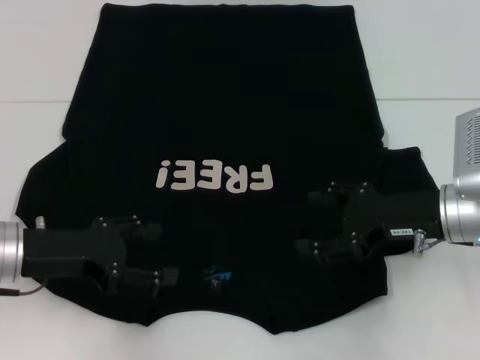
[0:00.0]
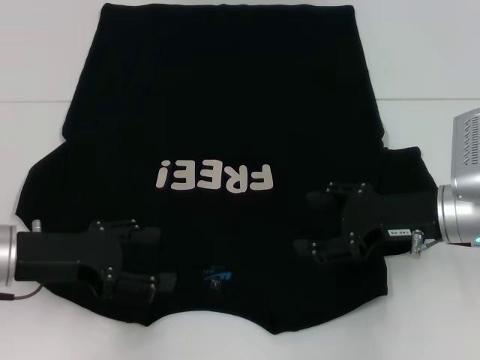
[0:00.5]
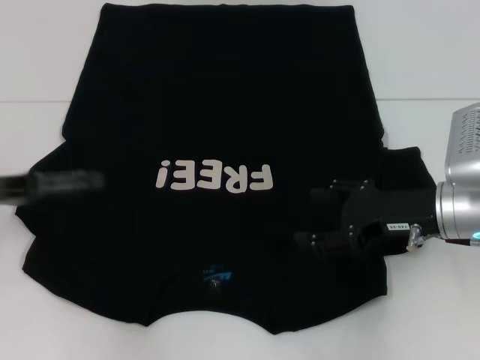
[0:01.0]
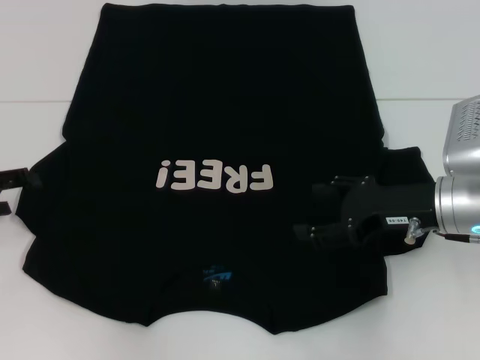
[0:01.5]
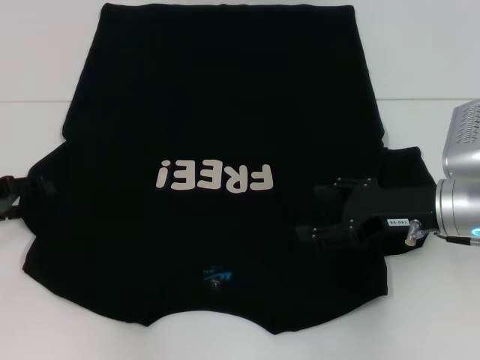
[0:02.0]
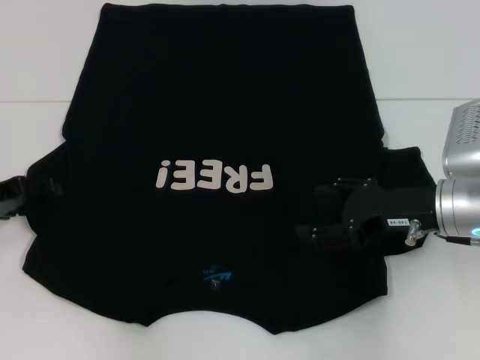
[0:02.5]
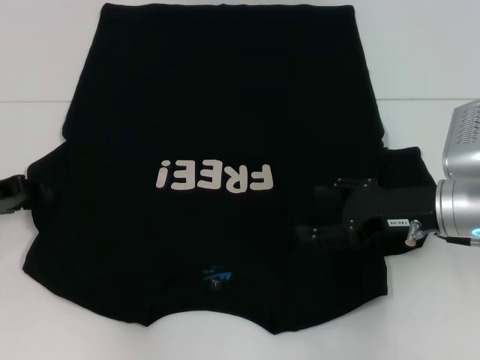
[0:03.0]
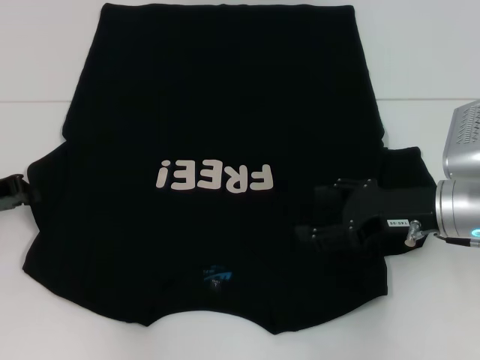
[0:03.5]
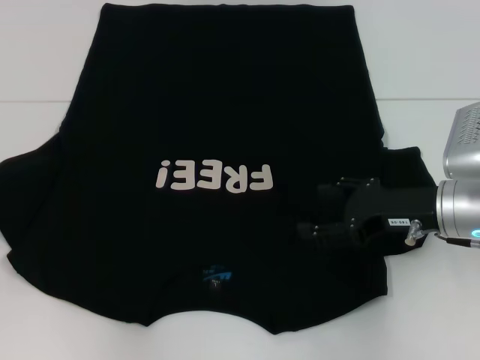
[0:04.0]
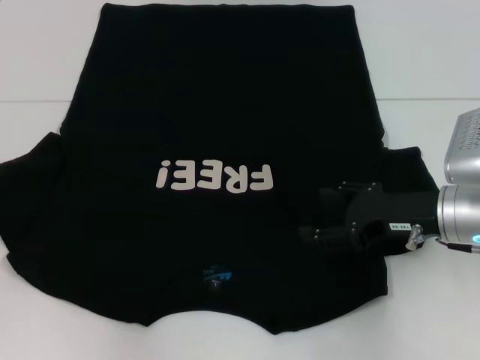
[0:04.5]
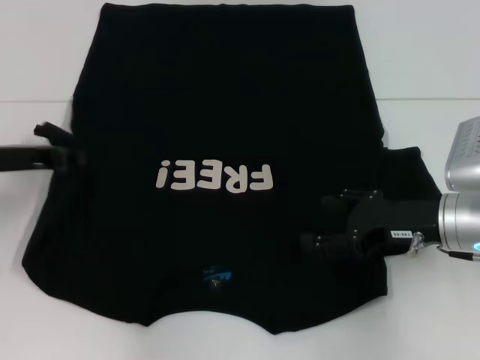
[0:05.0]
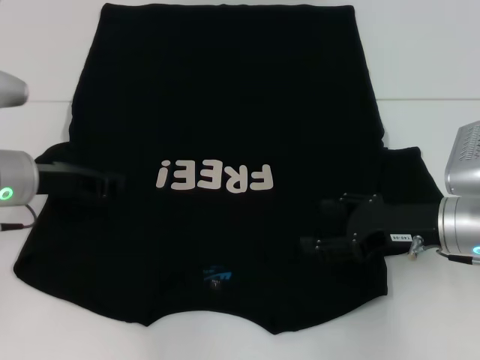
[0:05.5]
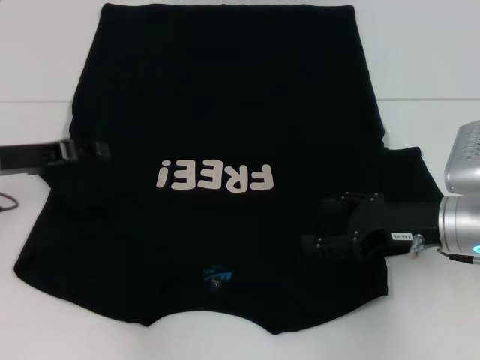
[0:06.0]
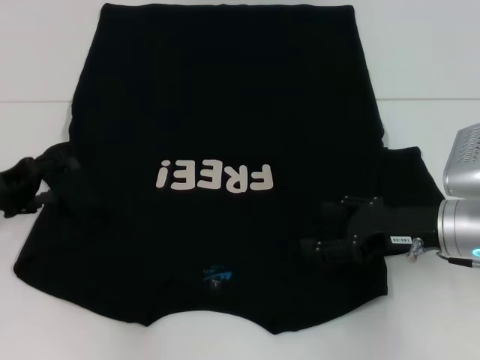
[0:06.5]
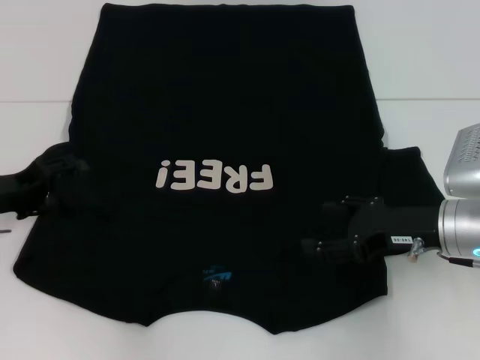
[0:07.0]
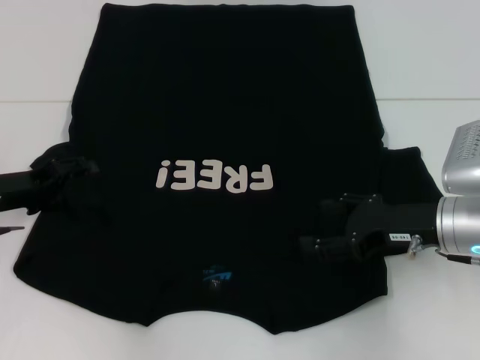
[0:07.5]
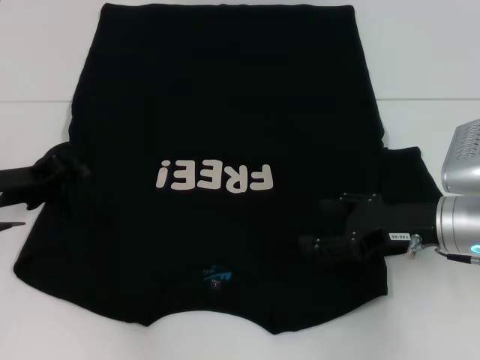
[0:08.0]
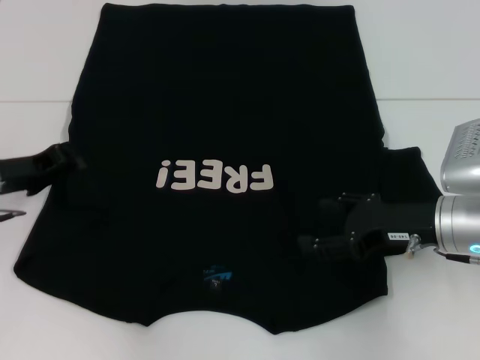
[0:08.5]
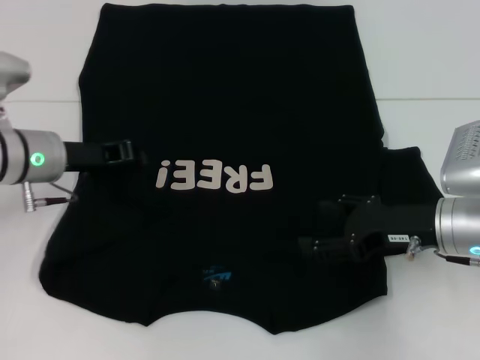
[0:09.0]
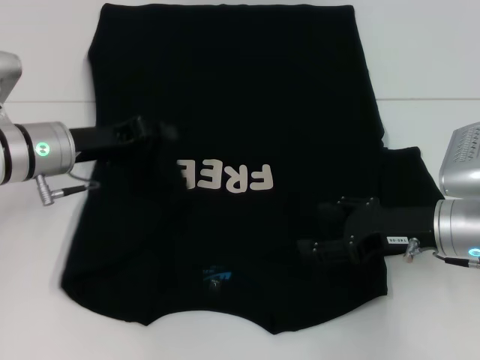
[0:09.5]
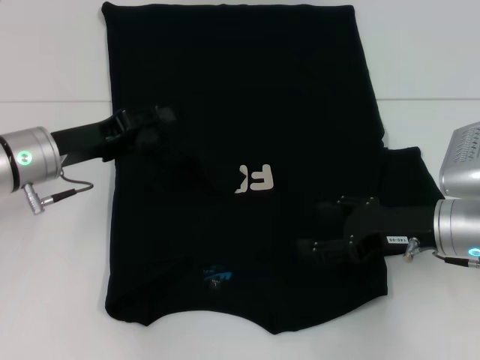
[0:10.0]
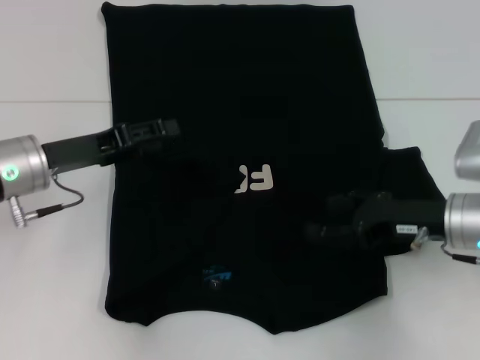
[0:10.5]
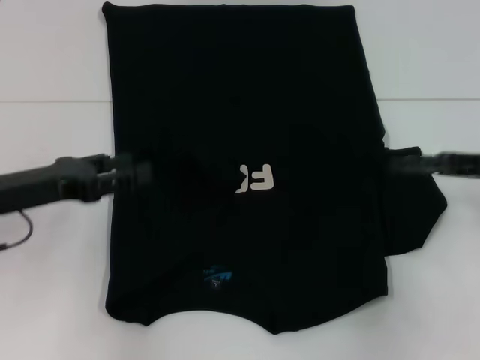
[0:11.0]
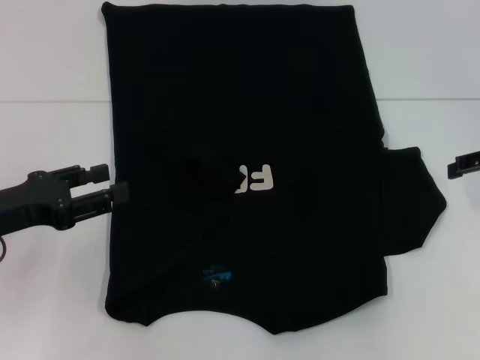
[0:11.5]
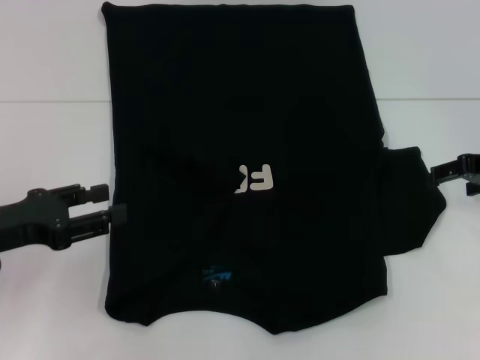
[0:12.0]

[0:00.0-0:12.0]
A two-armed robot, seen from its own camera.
Step, 0:00.0 to 0:06.0: Fold the bottom left sleeve with your left hand.
0:00.0 to 0:02.0: The left gripper is displaced to the left by approximately 10 cm.
0:02.0 to 0:04.0: The left gripper closes.
0:04.0 to 0:06.0: The left gripper heads to the right, covering about 10 cm.
0:06.0 to 0:08.0: The left gripper travels downward by roughly 5 cm, and opens and closes again.
0:08.0 to 0:10.0: The left gripper moves to the right, some 5 cm, and closes, then opens again.
0:10.0 to 0:12.0: The left gripper shifts approximately 10 cm backward and to the left; the right gripper heads to the right, forward and upward, covering roughly 15 cm.

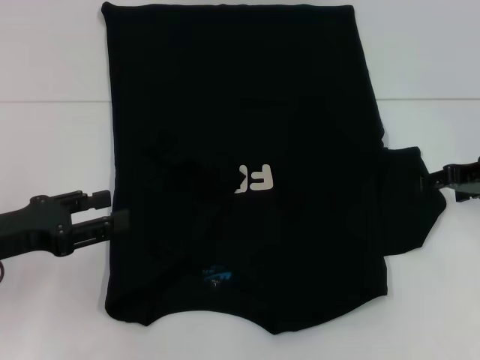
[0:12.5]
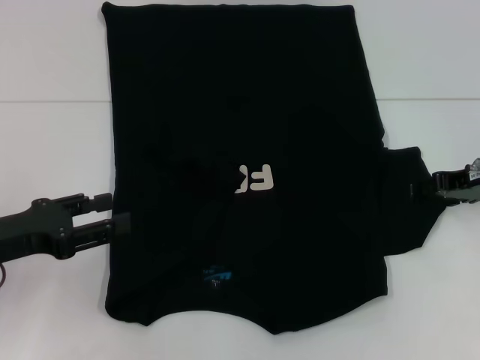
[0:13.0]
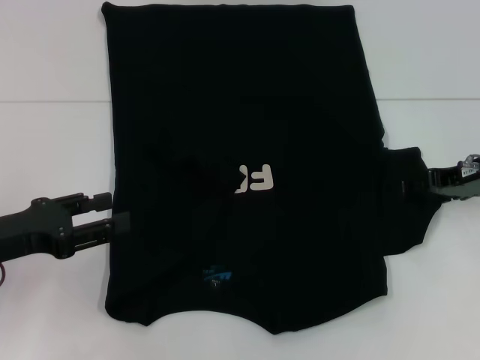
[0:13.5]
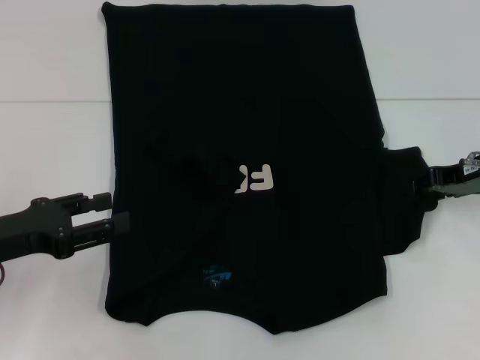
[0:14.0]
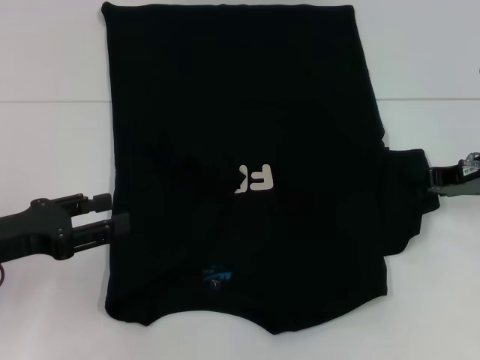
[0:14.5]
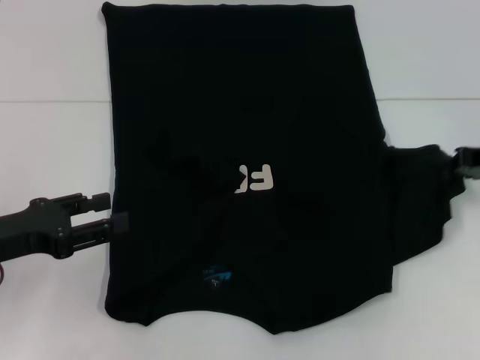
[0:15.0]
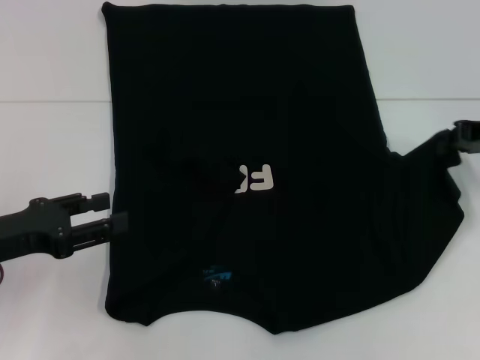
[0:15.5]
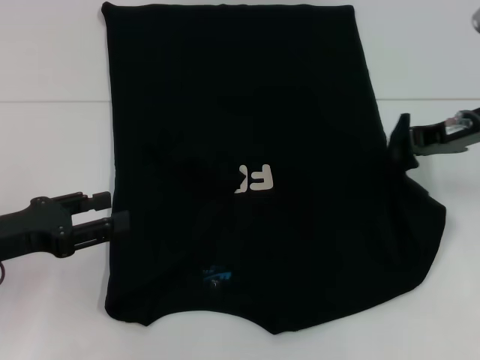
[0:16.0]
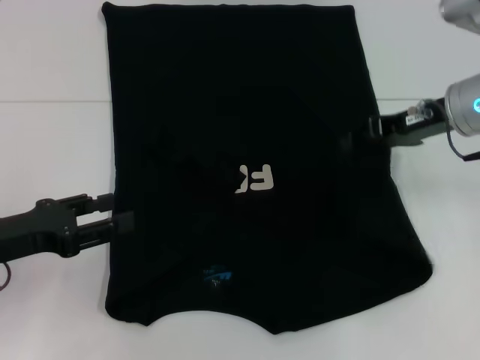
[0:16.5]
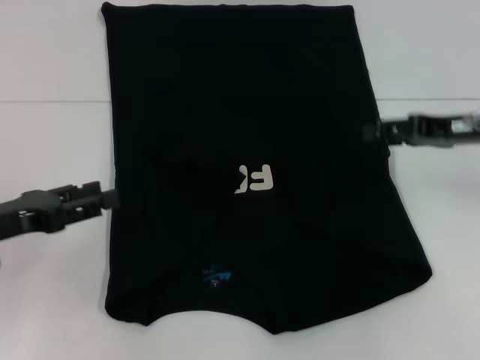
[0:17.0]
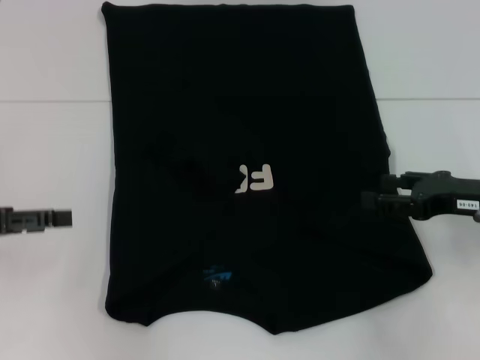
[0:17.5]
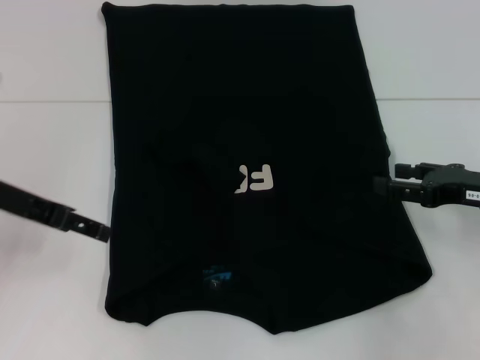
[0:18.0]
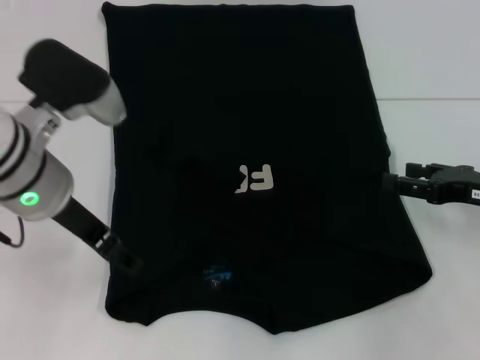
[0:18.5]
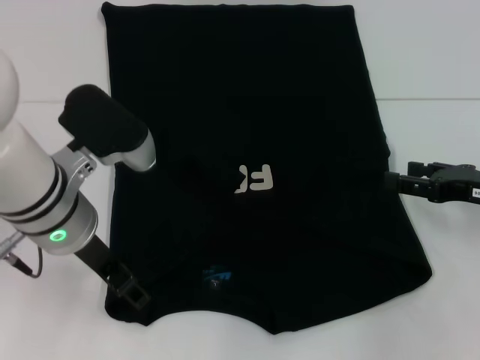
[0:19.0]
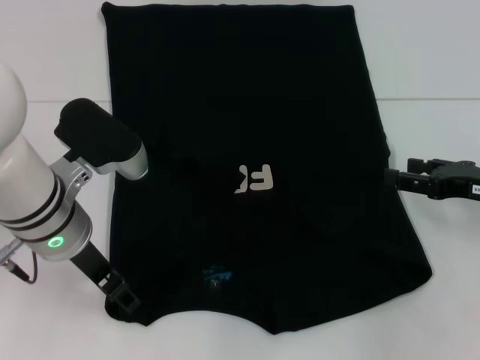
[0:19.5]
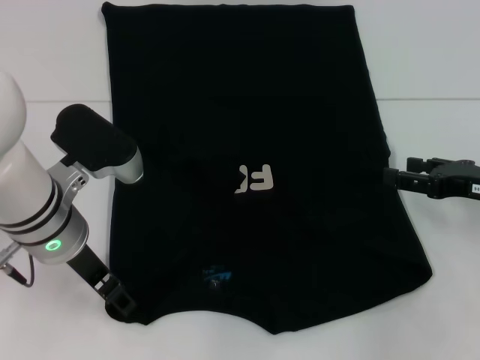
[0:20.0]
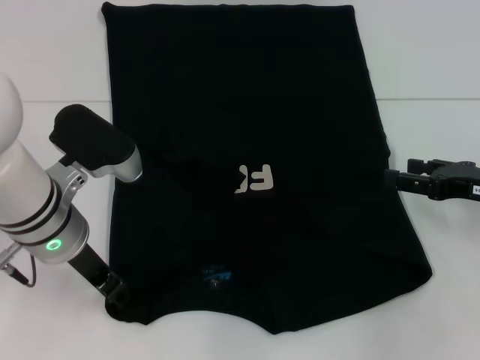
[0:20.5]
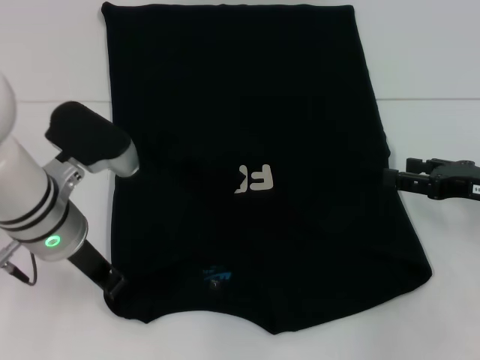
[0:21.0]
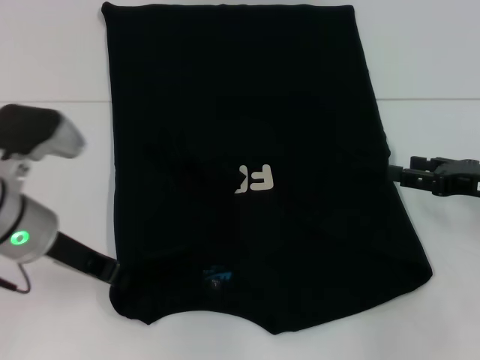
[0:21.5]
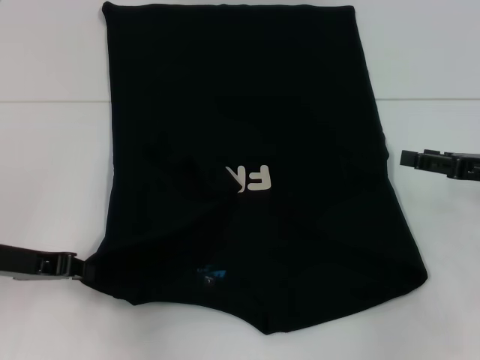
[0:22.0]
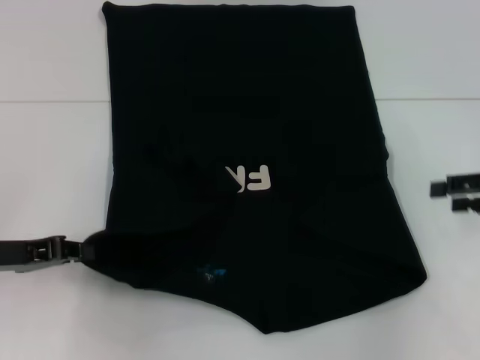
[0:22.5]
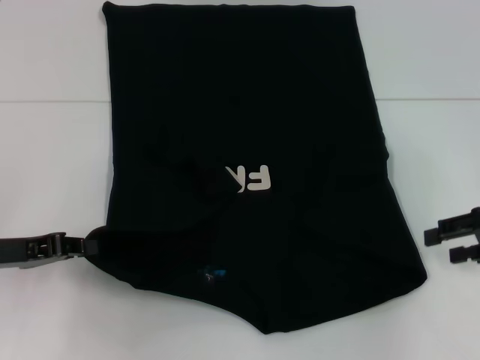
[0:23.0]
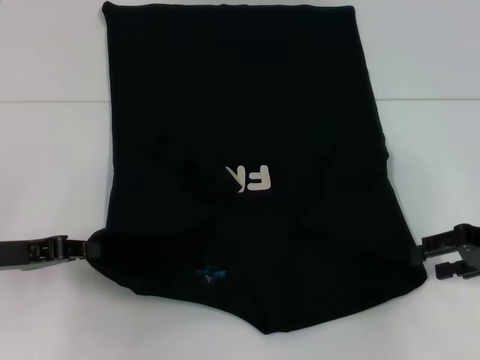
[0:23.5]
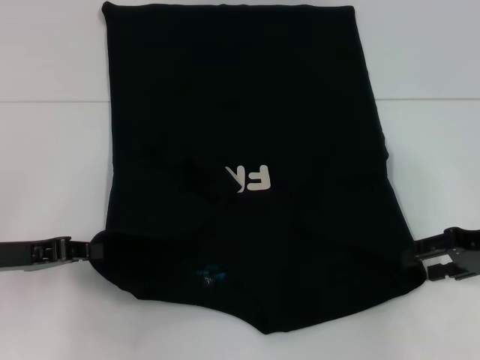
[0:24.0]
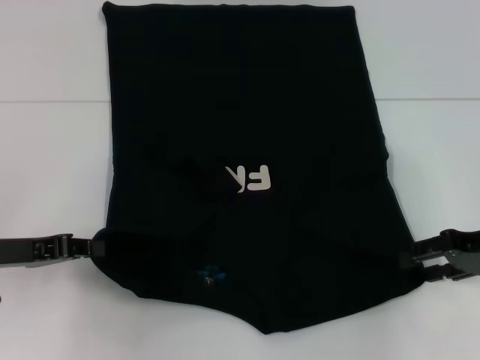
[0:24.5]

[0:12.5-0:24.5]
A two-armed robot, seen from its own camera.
Step, 0:12.5 to 0:17.5: Fold the bottom right sleeve with your right hand.
Step, 0:18.0 to 0:21.0: Grab the bottom left corner with your left hand.
0:12.5 to 0:14.5: The right gripper closes.
0:14.5 to 0:16.5: The right gripper shifts roughly 5 cm to the left.
0:16.5 to 0:18.5: The left gripper is displaced to the right, upward and forward by some 15 cm. The right gripper is displaced to the right, downward and backward by roughly 15 cm, and opens its fingers.
0:18.5 to 0:20.5: The left gripper is displaced downward by roughly 5 cm.
0:20.5 to 0:22.5: The right gripper shifts by about 5 cm; the left gripper moves to the left, roughly 15 cm, and closes.
0:22.5 to 0:24.5: The right gripper shifts by approximately 5 cm.

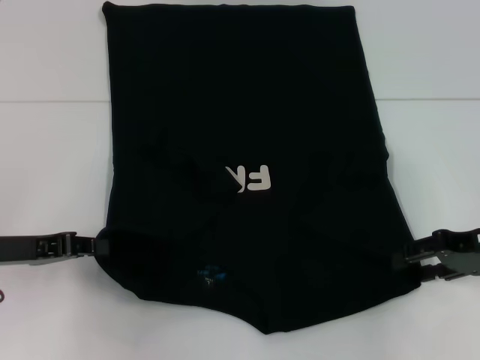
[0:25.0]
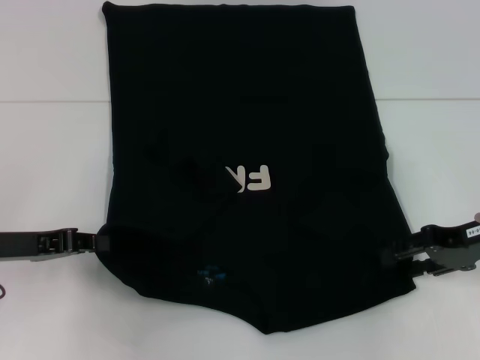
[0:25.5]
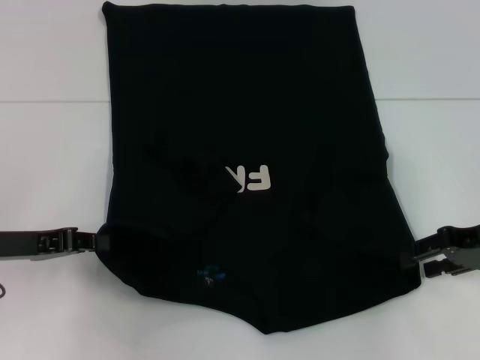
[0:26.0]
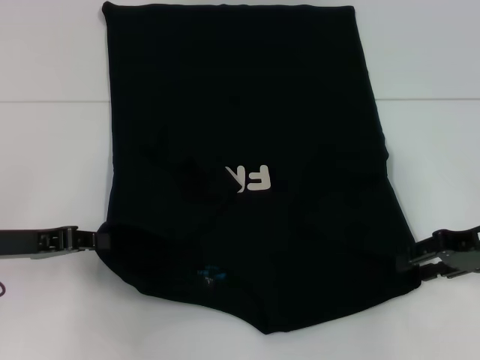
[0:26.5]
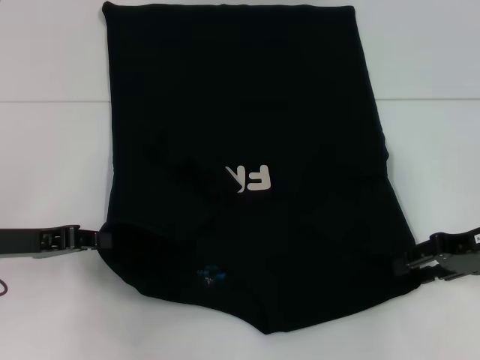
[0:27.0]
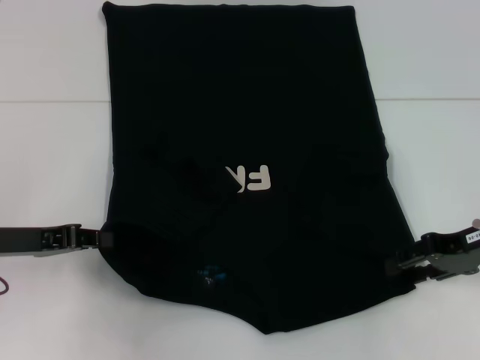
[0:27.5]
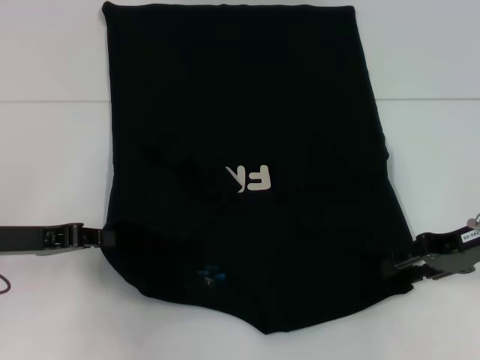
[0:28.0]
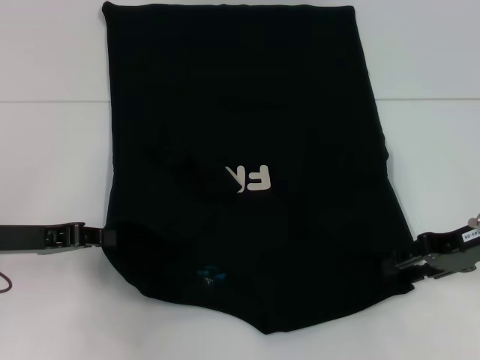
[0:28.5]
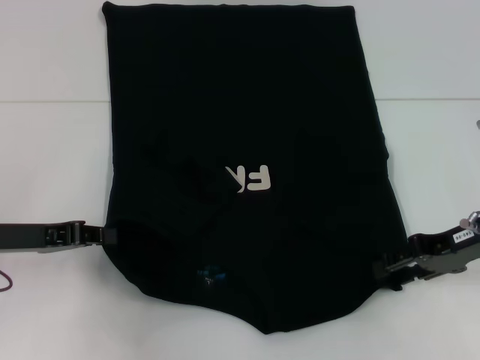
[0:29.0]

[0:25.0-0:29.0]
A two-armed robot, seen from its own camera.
0:25.0 to 0:27.0: Neither gripper changes place.
0:27.0 to 0:29.0: There are only small adjustments of the grippers.
